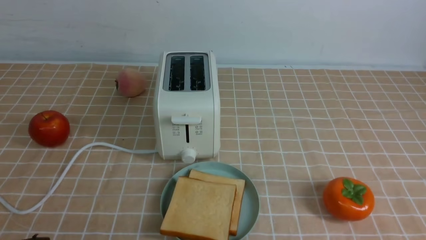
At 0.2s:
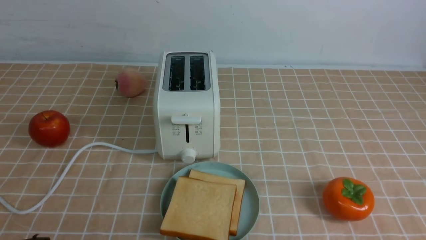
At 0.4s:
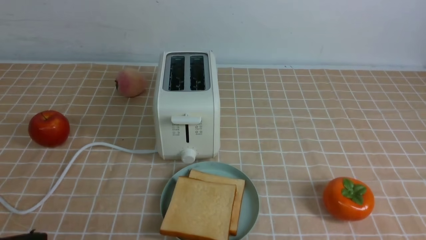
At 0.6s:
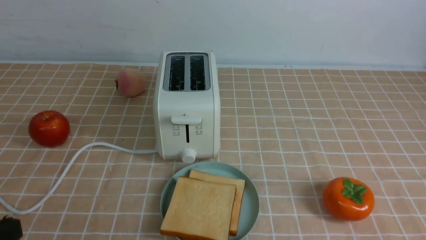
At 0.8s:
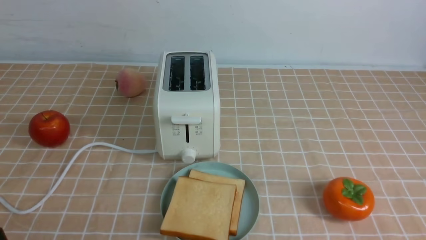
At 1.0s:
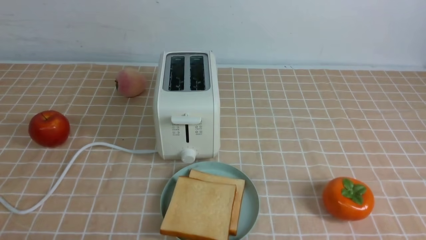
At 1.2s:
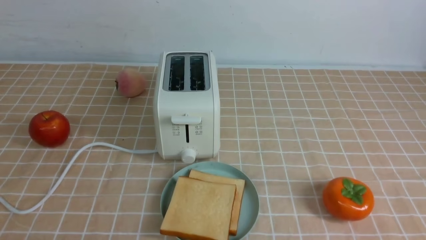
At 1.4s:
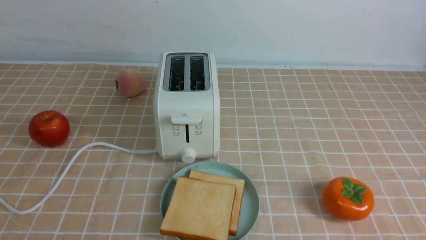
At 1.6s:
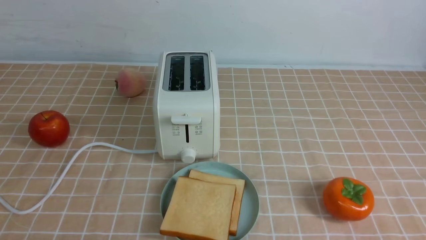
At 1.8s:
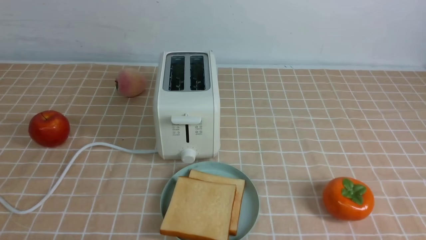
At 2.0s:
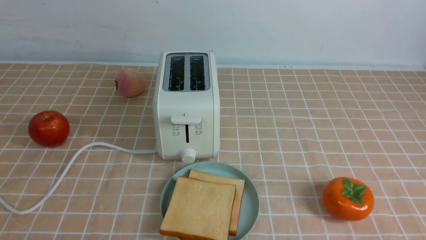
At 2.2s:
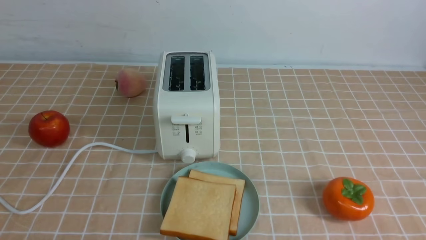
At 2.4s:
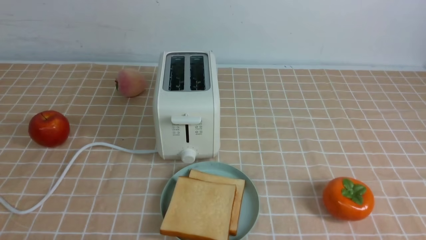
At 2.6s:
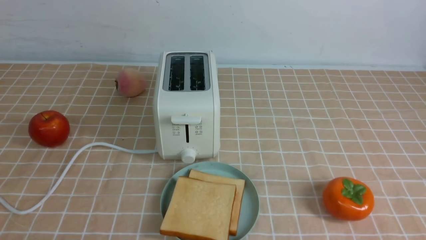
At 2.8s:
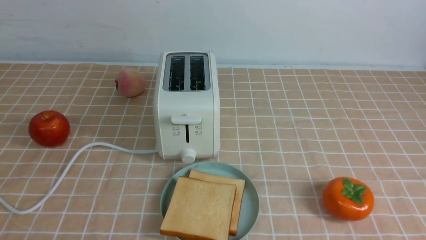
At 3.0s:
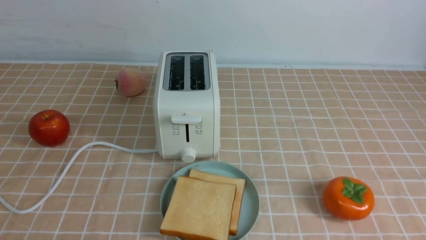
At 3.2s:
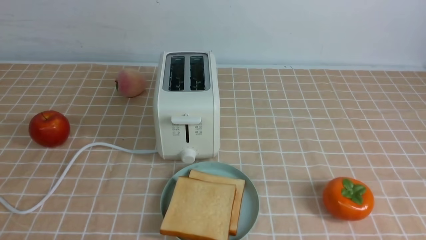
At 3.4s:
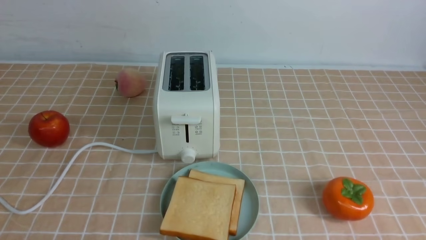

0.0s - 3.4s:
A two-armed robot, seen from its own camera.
Task of the whole recording: take toasted bread from bread machine on light coffee tablecloth place on plate.
0.0s - 1.6s: The left gripper travels downward by approximately 15 cm.

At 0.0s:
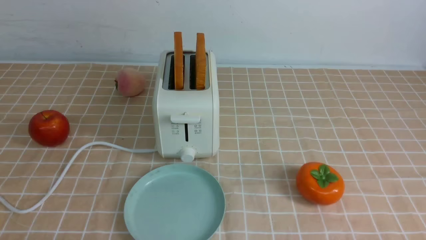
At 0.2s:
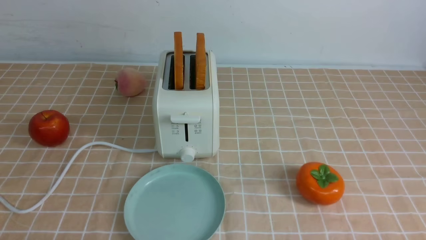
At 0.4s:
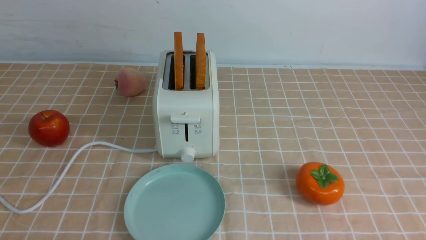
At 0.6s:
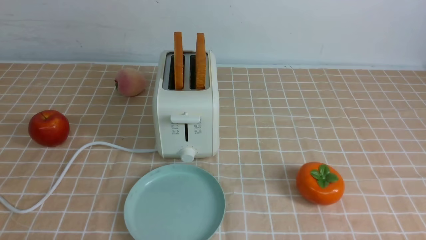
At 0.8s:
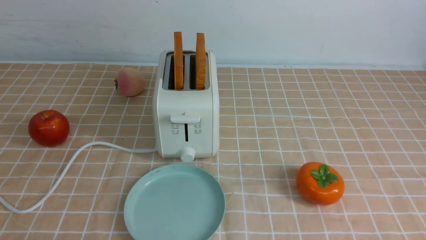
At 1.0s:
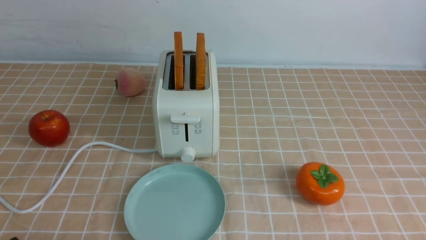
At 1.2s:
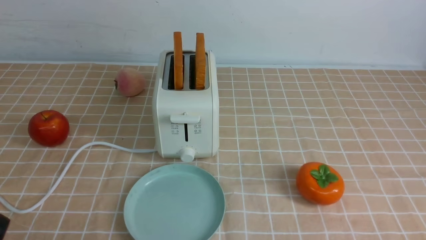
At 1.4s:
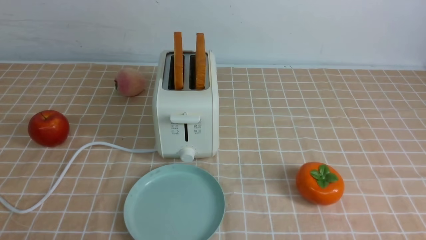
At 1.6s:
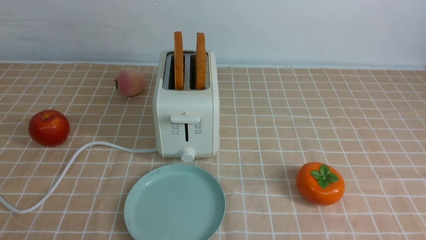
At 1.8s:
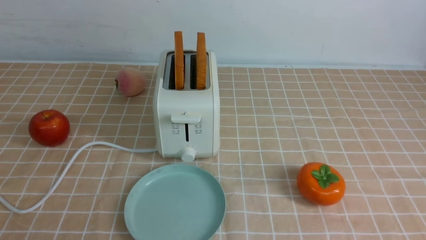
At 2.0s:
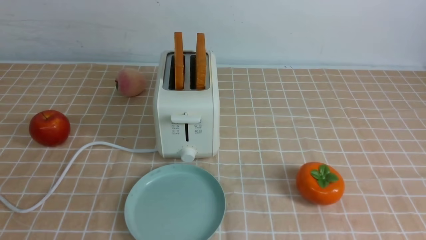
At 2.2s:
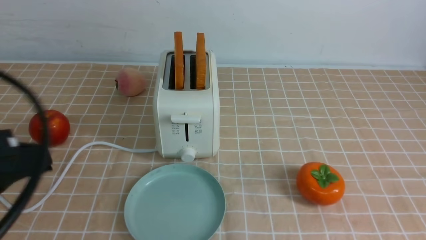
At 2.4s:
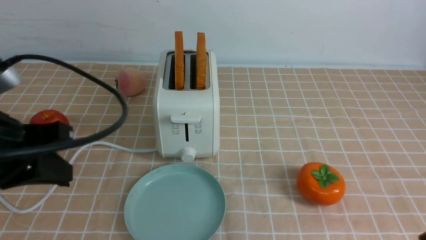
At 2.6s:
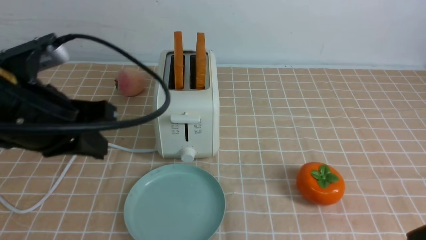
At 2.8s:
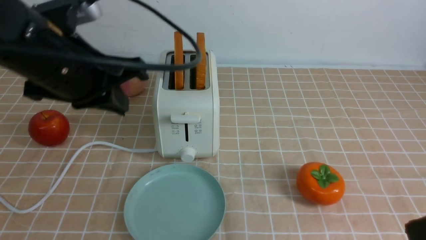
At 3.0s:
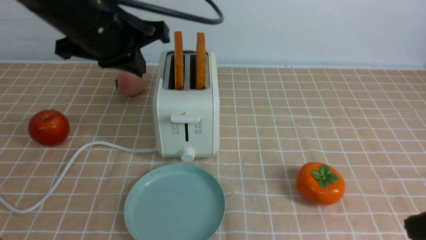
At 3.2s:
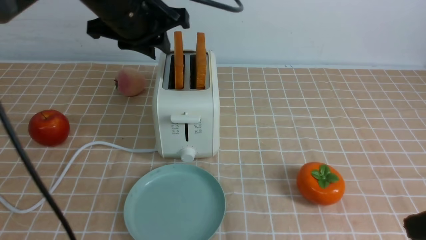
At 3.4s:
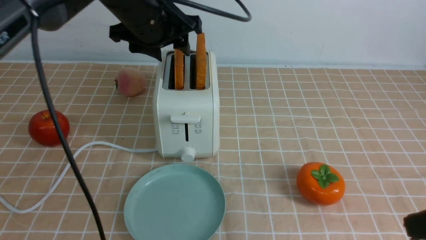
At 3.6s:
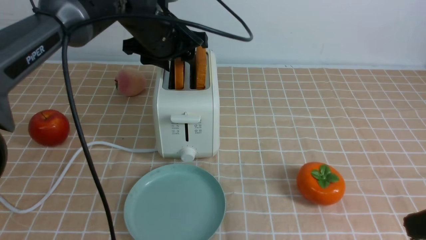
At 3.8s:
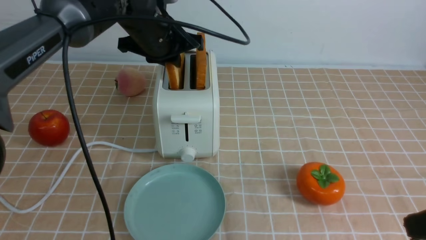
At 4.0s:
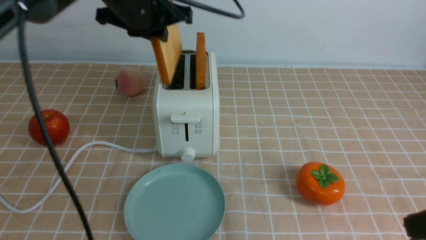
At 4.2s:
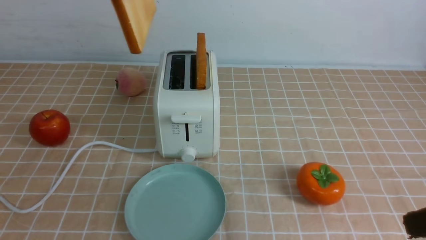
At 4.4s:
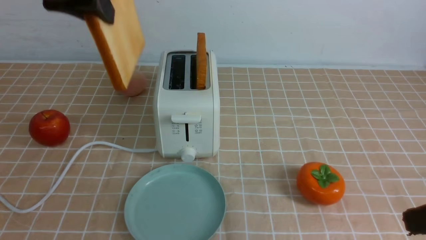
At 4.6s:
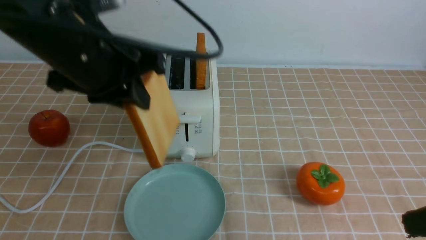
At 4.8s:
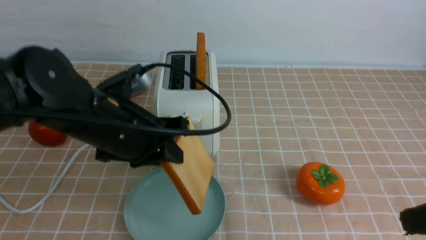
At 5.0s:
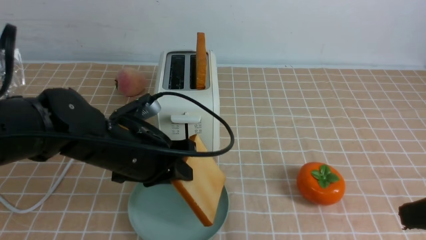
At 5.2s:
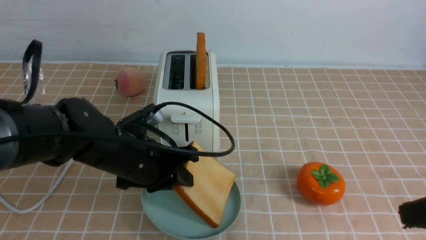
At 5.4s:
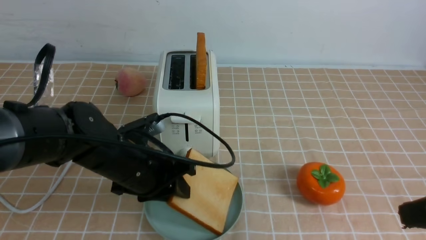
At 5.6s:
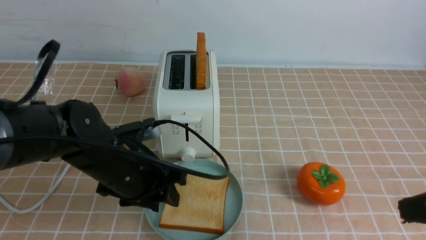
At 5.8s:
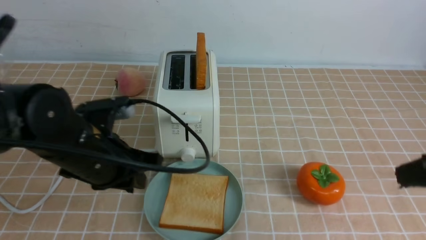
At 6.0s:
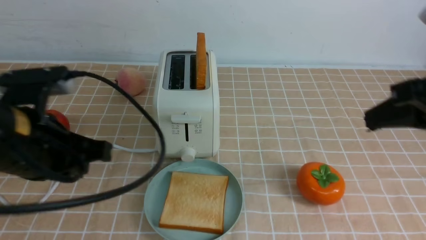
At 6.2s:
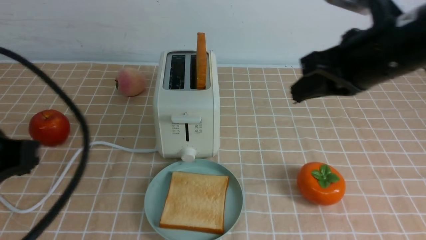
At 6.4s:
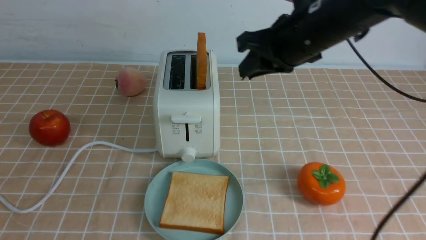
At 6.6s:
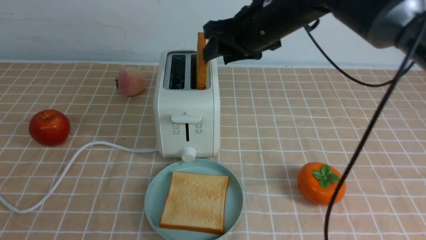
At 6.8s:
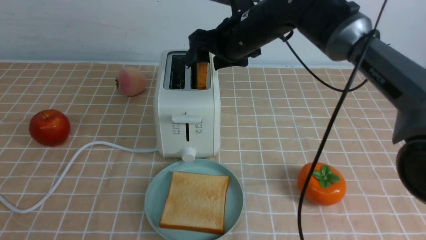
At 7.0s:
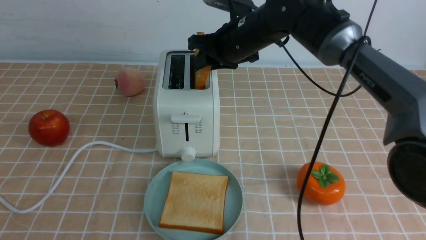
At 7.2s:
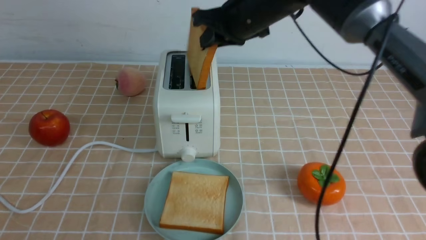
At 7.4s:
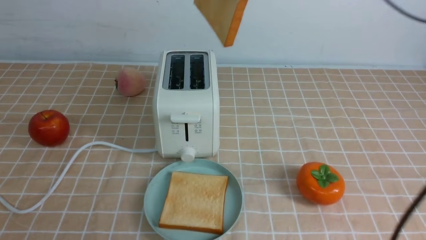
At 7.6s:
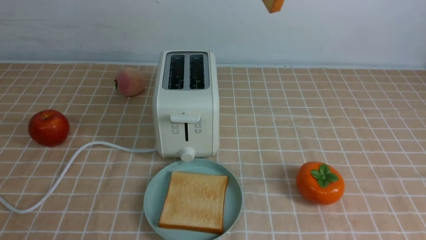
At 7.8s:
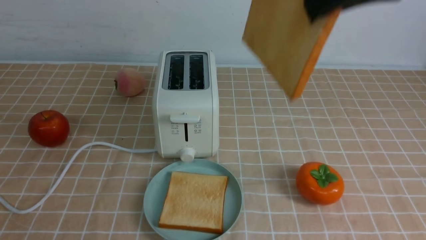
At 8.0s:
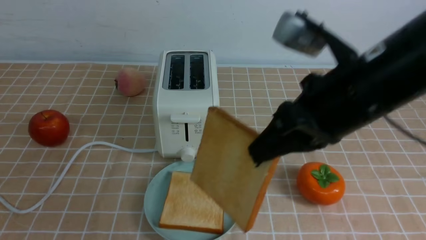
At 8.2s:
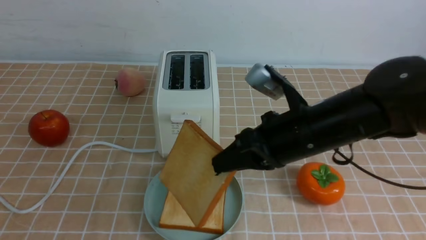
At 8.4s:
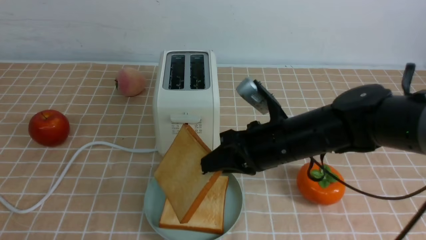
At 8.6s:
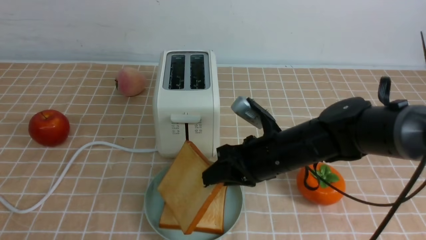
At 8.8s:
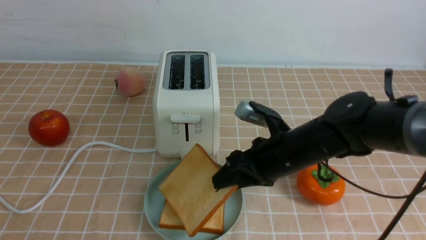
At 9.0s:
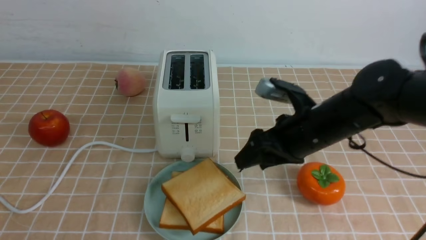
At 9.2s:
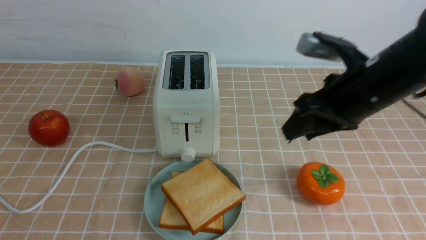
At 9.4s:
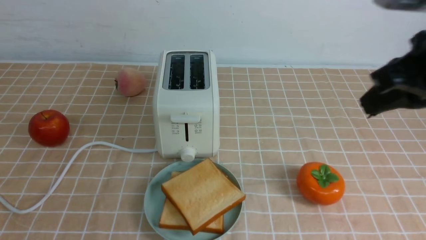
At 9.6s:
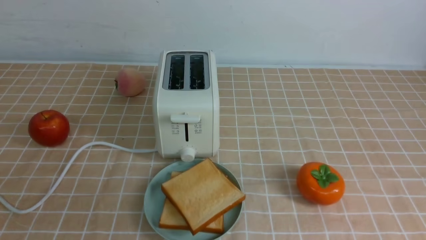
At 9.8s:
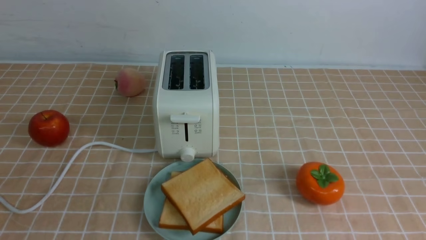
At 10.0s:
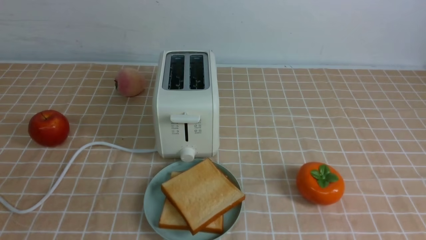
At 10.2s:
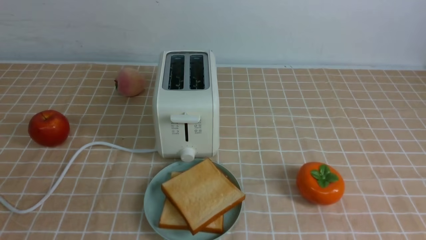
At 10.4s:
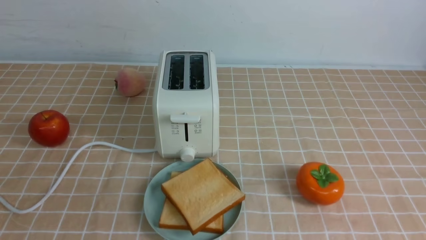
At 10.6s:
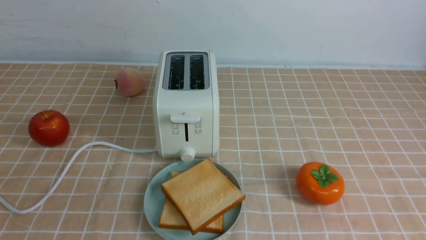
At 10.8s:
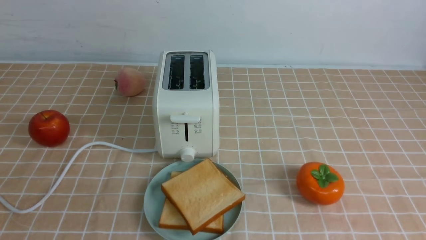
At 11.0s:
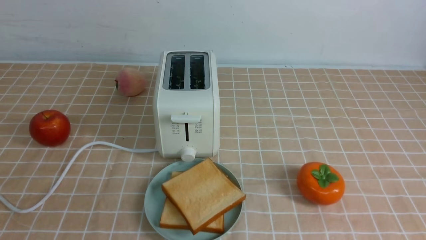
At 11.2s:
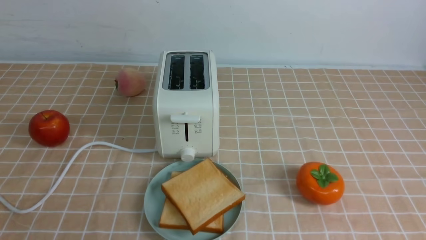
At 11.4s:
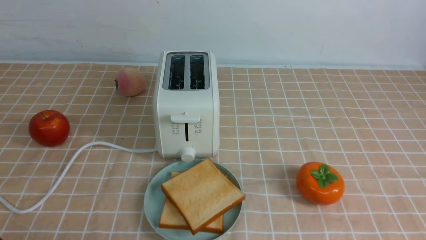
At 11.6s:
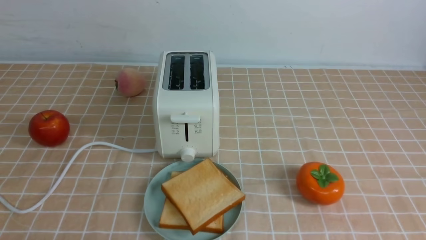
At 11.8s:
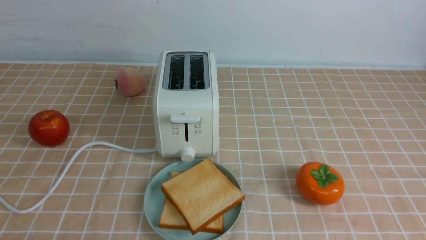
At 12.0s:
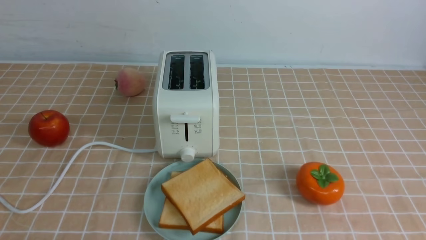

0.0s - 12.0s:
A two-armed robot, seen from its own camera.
Task of the whole recording: take toasted bread from bread machine on light coffee tablecloth place on plate.
Step, 0.0s - 3.8s: use the left arm to take out a slice of bread.
Step, 4.0s - 5.6s: use the left arm to put a slice of bread into the empty plate.
Step, 5.8s - 7.0s: use the right arm to take out a slice of bread.
Step, 7.2s - 9.0s: use the right arm to put a slice of bread into the plate.
1.6s - 3.0s: The right gripper travels upward and forward by roughly 15 cm, and closes its fingers. The left gripper is displaced forward, upward and to the right by roughly 35 cm.
3.0s - 4.4s: The left gripper reaches approximately 10 cm forward, then returns, and opens and closes again.
4.4s - 6.0s: The right gripper travels forward and upward by about 10 cm, while the left gripper goes roughly 15 cm downward and backward, and opens, then closes again.
6.0s - 7.6s: The left gripper goes some 20 cm backward. Meanwhile the right gripper travels upward and to the left by approximately 15 cm, moves roughly 20 cm forward and comes back, and opens and closes again.
7.6s - 9.0s: The right gripper heads downward, covering some 25 cm, and opens up.
9.0s - 10.4s: The right gripper moves backward and to the right, about 35 cm, and closes up.

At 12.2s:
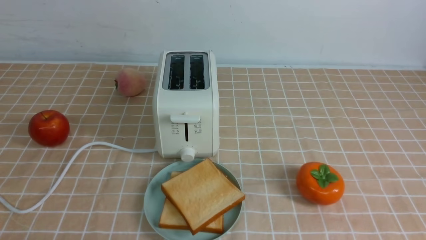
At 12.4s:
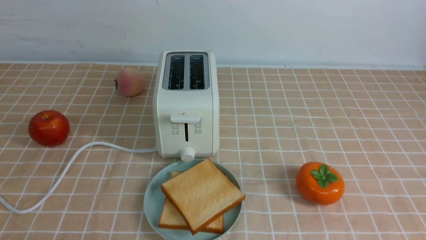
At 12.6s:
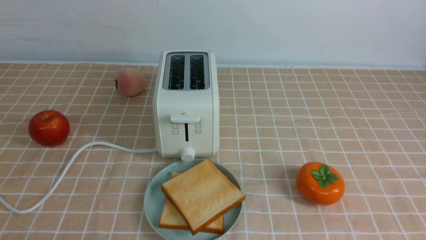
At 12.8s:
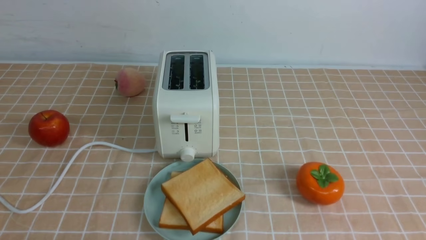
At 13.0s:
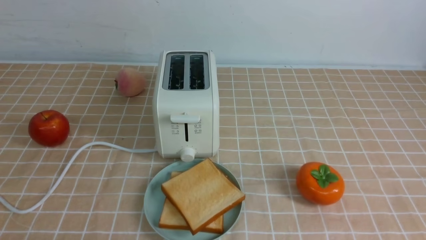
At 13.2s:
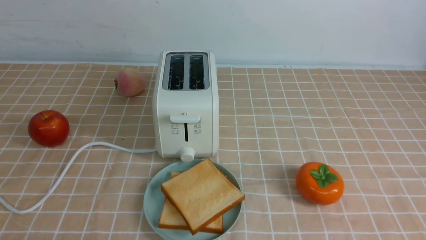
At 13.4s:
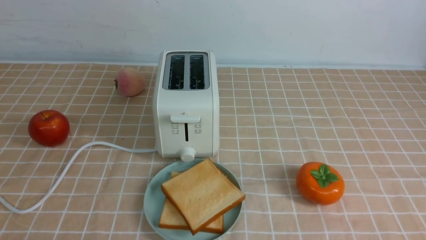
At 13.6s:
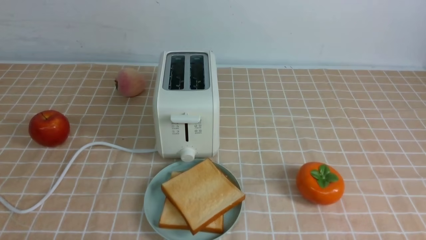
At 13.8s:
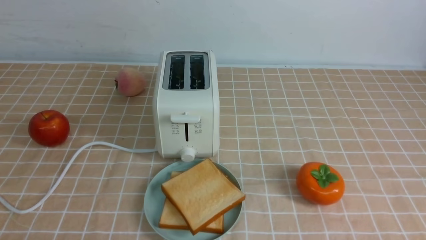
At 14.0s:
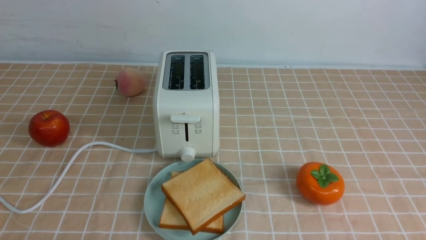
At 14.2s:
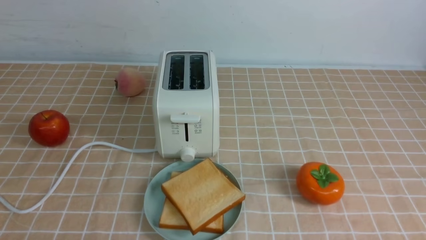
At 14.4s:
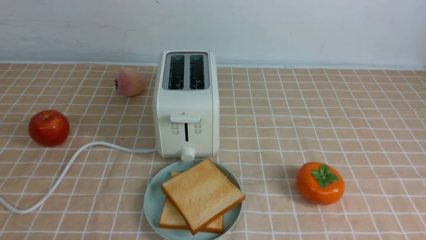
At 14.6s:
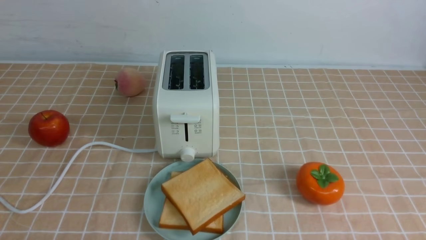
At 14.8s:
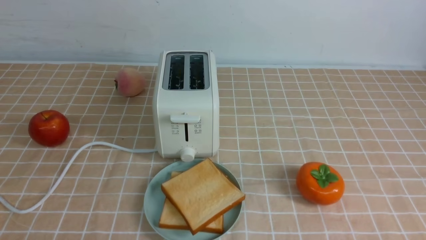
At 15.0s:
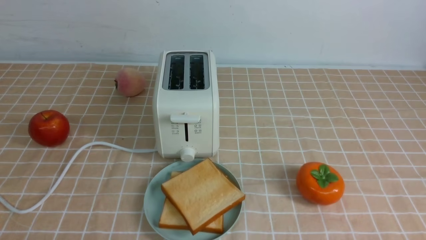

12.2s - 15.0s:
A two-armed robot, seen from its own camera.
Task of the whole recording: take toasted bread from bread machine on light coffee tablecloth place on plate.
13.6s - 15.0s: The two grippers keep their place.
